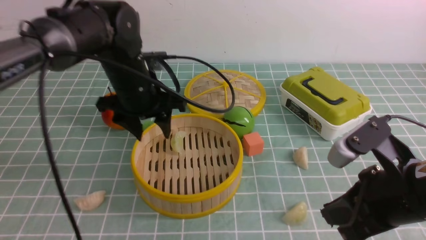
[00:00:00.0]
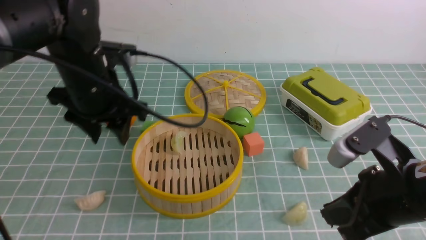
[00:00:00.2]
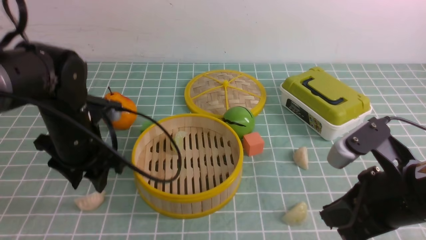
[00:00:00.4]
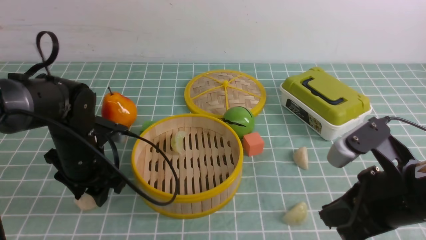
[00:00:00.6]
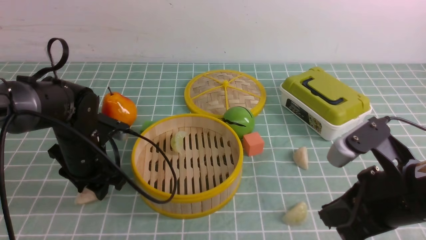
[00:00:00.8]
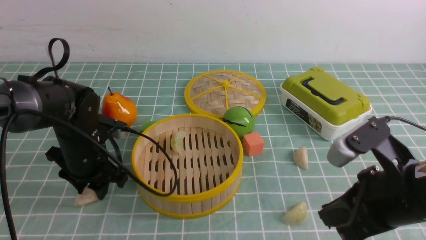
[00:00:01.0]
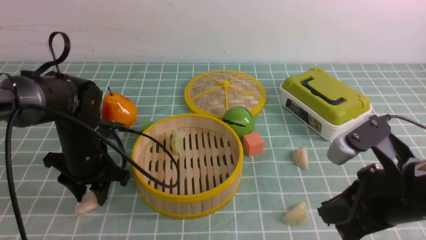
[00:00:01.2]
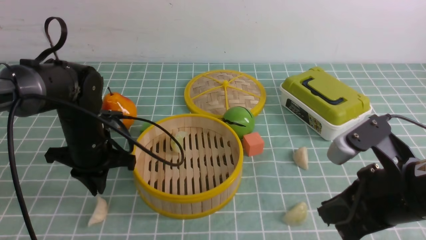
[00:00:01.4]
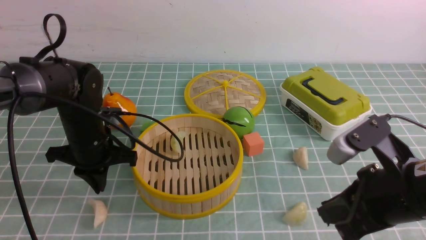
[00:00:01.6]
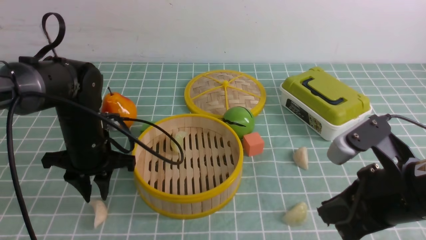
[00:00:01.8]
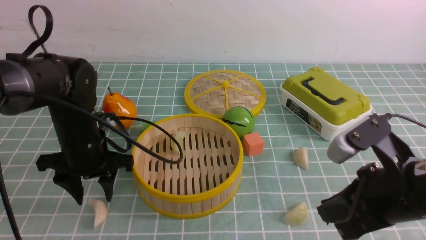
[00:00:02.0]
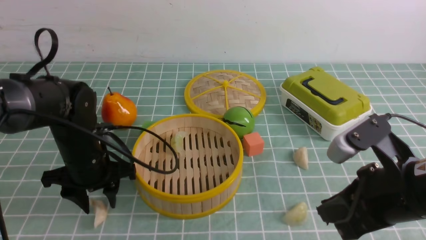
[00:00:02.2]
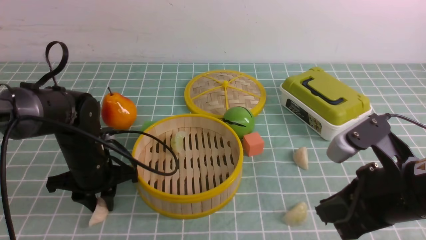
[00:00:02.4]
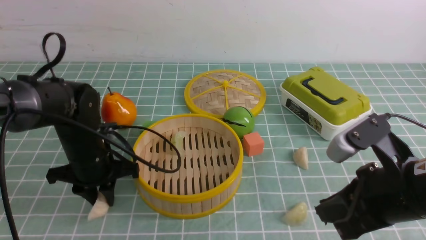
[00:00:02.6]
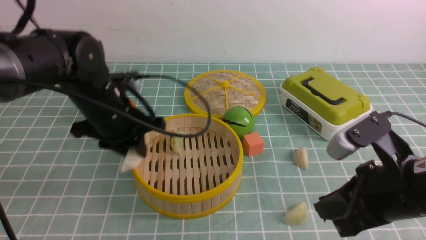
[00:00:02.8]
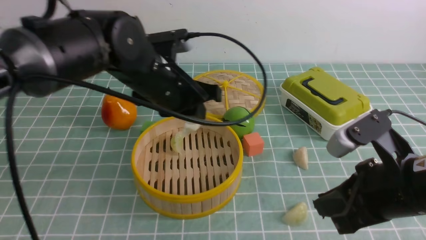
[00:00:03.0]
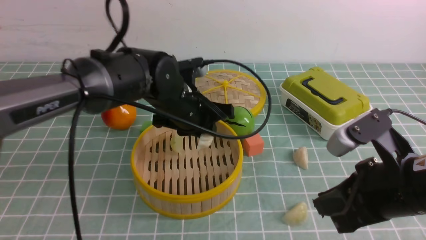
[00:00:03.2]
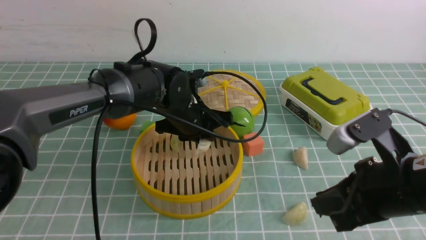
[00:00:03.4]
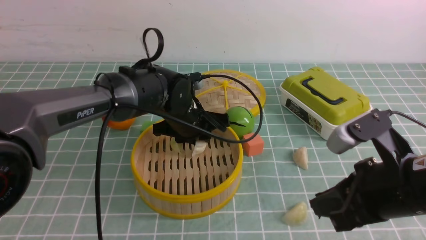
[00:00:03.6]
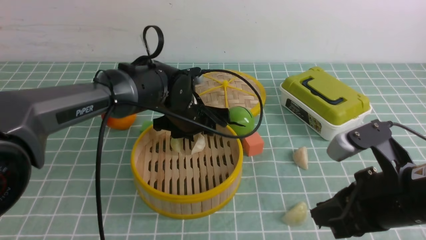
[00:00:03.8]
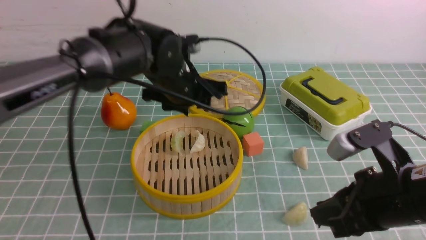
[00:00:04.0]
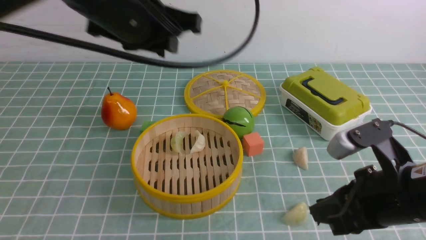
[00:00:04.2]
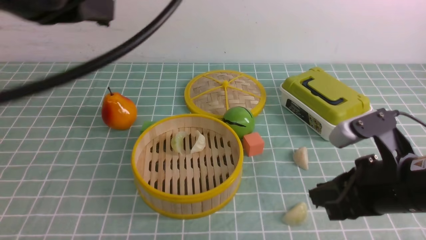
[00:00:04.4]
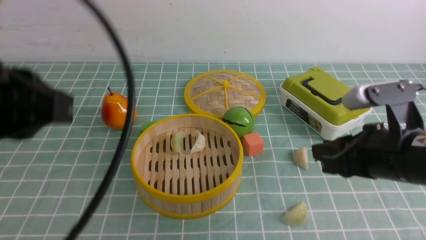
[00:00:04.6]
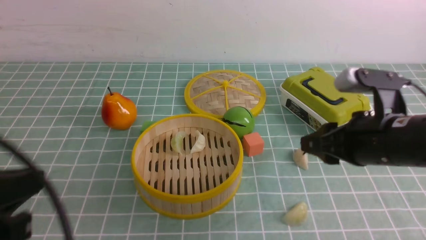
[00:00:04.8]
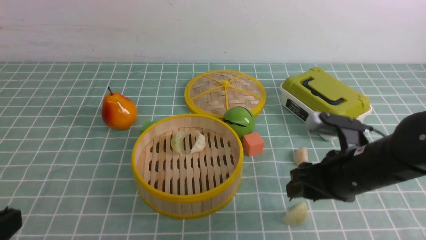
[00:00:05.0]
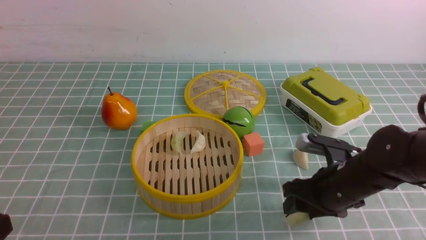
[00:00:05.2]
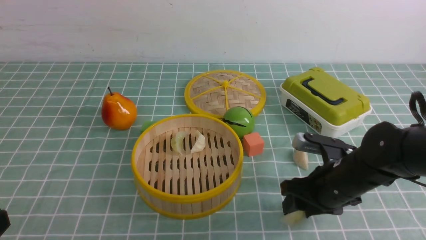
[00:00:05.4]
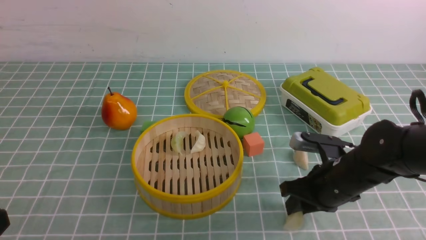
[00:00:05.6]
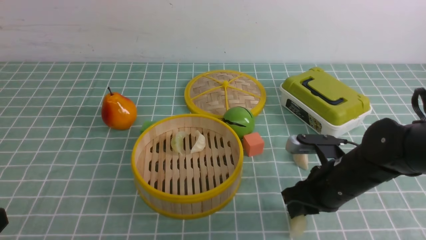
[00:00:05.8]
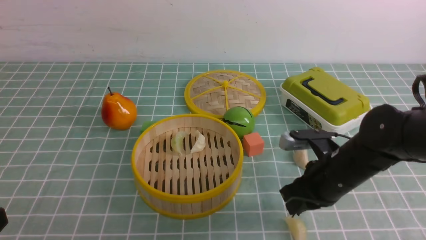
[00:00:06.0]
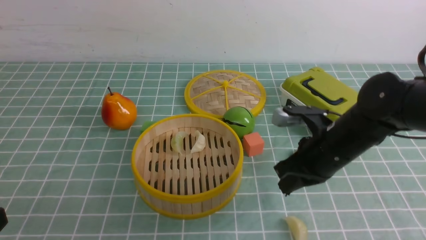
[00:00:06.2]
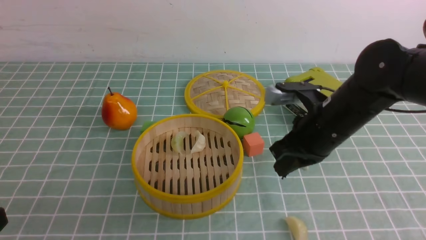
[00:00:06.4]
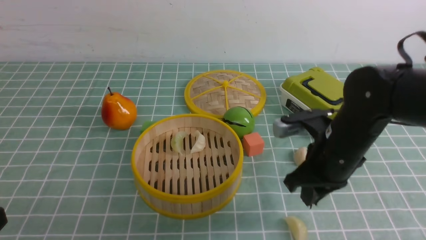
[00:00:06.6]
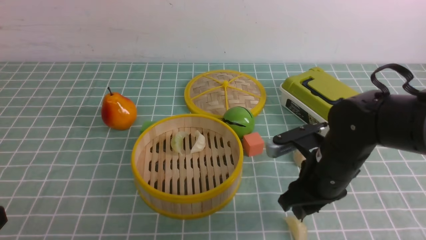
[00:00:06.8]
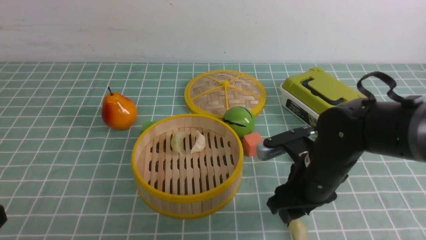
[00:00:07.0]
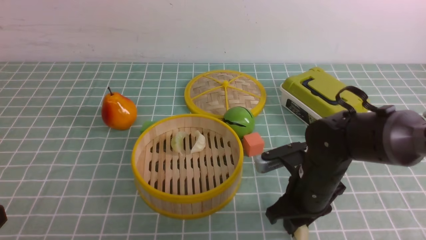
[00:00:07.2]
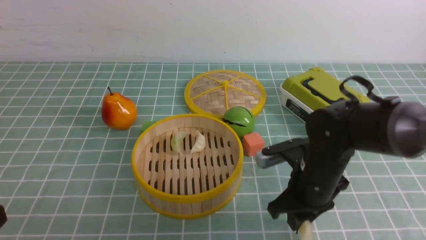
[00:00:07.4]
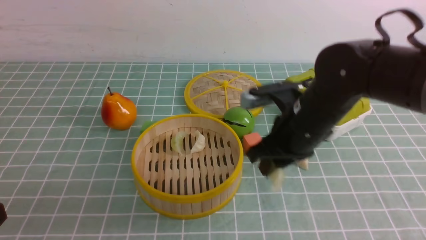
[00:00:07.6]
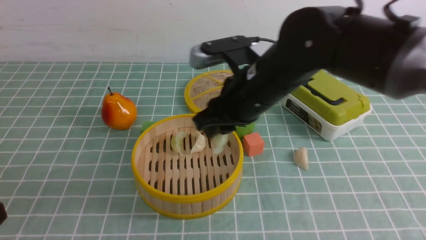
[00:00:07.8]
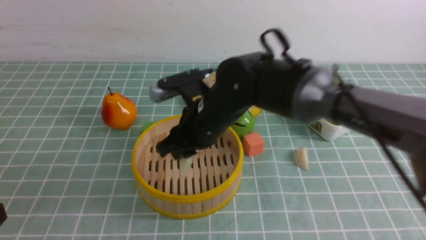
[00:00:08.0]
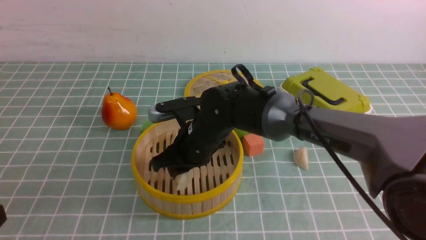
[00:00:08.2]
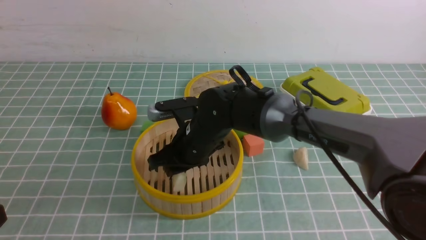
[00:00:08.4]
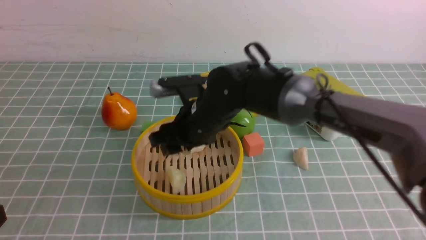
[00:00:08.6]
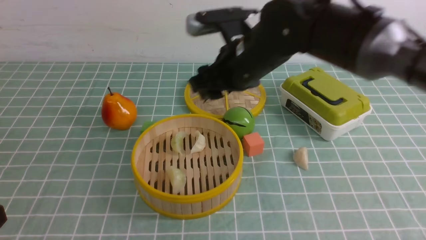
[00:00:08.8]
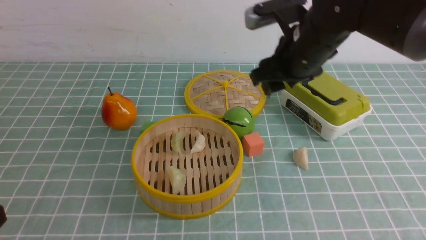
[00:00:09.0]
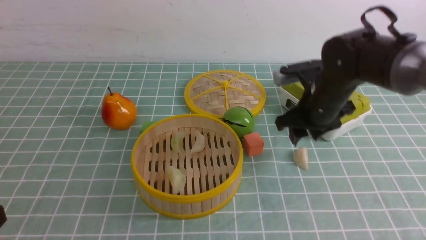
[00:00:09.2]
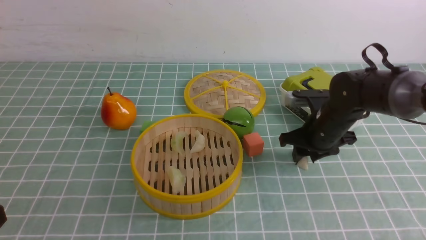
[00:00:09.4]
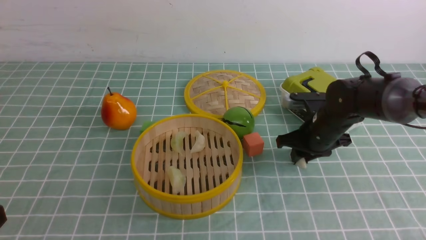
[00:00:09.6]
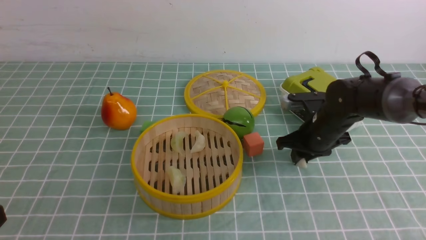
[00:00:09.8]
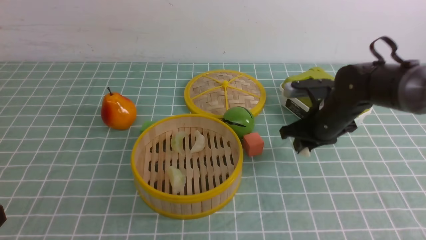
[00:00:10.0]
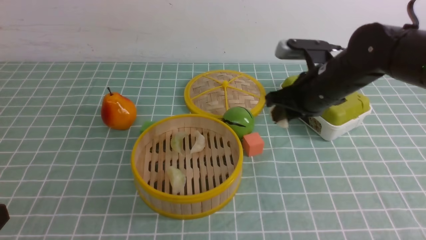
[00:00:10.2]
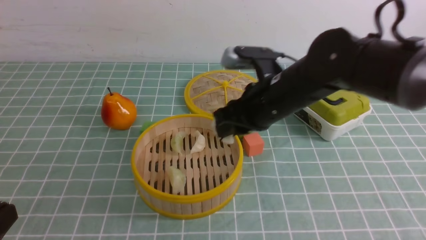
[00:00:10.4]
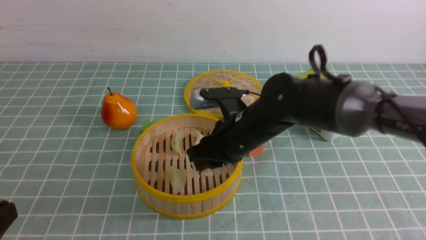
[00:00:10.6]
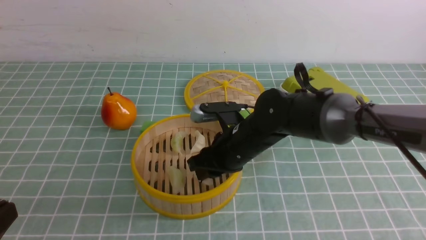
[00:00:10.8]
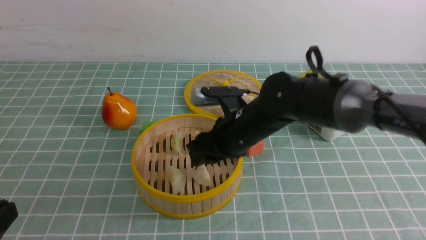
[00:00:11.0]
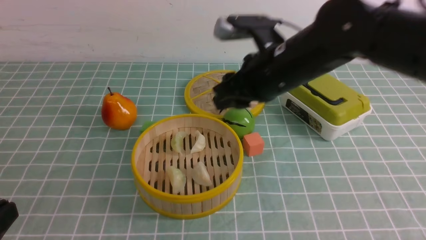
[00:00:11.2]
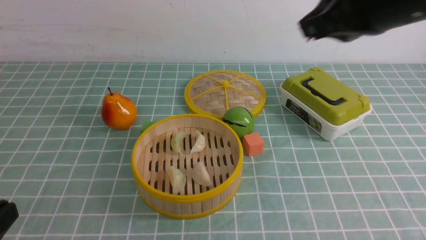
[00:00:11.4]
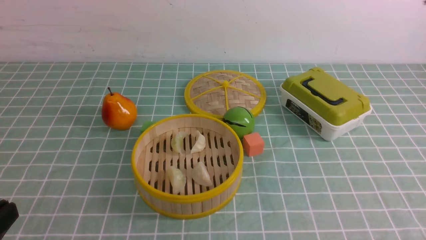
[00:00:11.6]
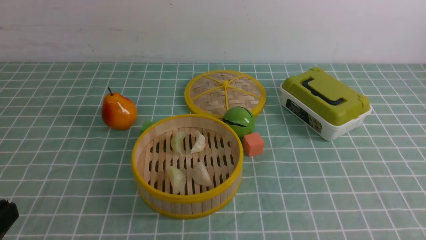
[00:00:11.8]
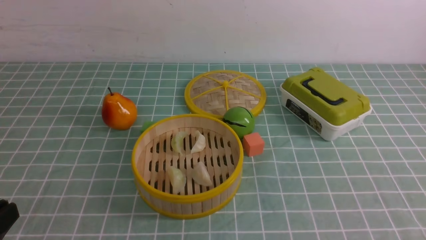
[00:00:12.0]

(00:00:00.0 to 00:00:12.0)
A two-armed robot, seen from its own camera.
Task of the whole recording: put the dumplings into the steamer on the table with the blue tablecloth.
Step, 00:00:00.2 - 00:00:02.8: use the left arm to grab a dumpling.
Step, 00:00:03.0 - 00:00:03.8: use the left arm to put the dumpling into the steamer.
Step, 00:00:04.0 - 00:00:07.6: use the right arm to grab a dumpling.
Step, 00:00:07.8 - 00:00:08.6: use the right arm to put the dumpling into the steamer.
Step, 00:00:08.8 - 00:00:10.2: use the right arm to grab a dumpling.
Step, 00:00:10.4 - 00:00:11.2: use the right arm to put the dumpling into the steamer.
00:00:00.0 - 00:00:01.6: The left gripper heads downward and to the left, covering roughly 10 cm, and closes.
00:00:01.6 - 00:00:03.0: The left gripper goes about 15 cm to the right and upward, and opens, then closes again.
00:00:03.0 - 00:00:04.4: The left gripper moves upward, backward and to the left, about 25 cm, and closes its fingers.
00:00:04.4 - 00:00:06.0: The right gripper shifts some 10 cm forward and downward, and opens and closes again. The left gripper is displaced downward, backward and to the left by some 25 cm.
00:00:06.0 - 00:00:07.6: The right gripper goes up and down, some 10 cm each way, reversing 2 times.
00:00:07.6 - 00:00:09.0: The right gripper shifts about 10 cm forward, moves roughly 10 cm to the left and comes back, and opens.
00:00:09.0 - 00:00:10.4: The right gripper moves approximately 15 cm downward and comes back, and closes its fingers.
00:00:10.4 - 00:00:12.0: The right gripper heads backward and to the right, covering some 35 cm, and closes.

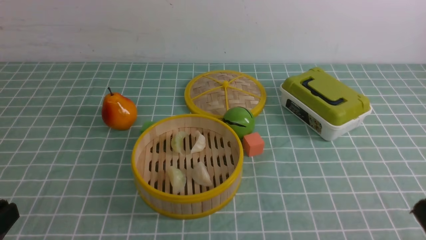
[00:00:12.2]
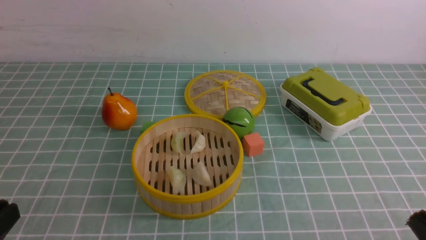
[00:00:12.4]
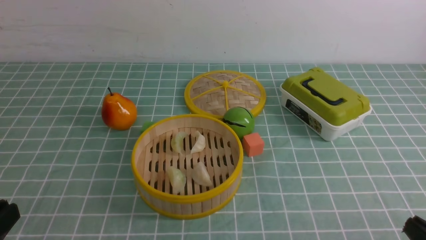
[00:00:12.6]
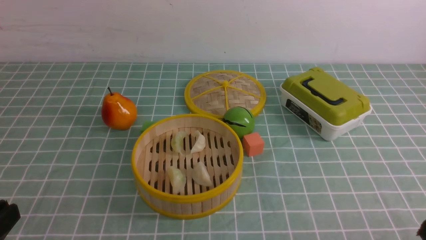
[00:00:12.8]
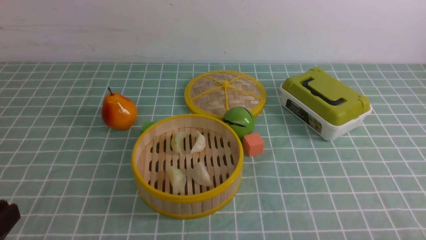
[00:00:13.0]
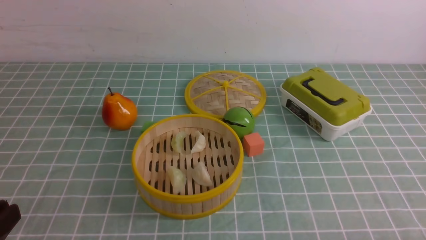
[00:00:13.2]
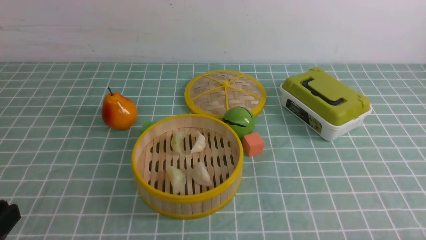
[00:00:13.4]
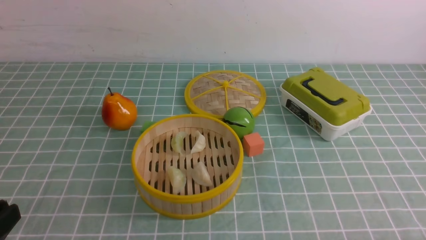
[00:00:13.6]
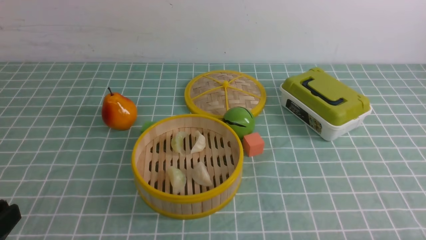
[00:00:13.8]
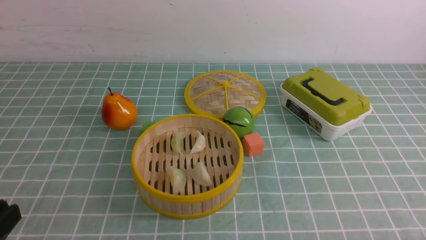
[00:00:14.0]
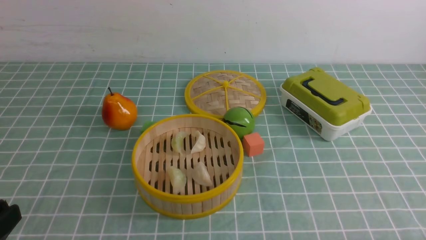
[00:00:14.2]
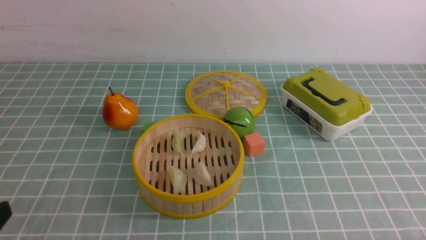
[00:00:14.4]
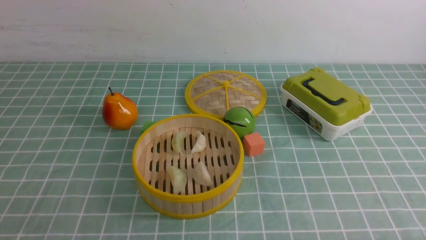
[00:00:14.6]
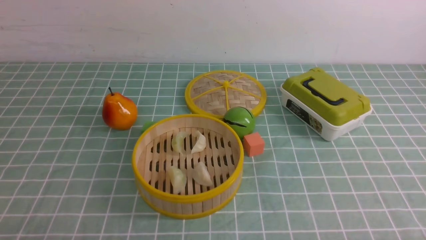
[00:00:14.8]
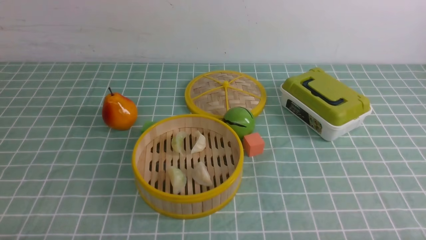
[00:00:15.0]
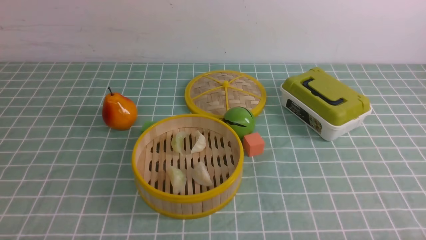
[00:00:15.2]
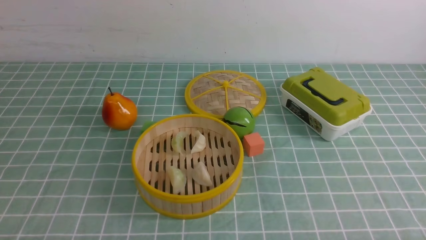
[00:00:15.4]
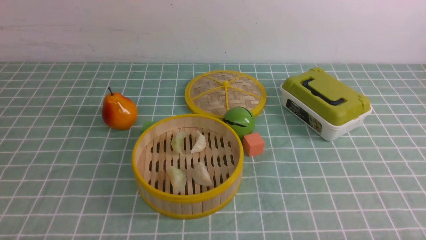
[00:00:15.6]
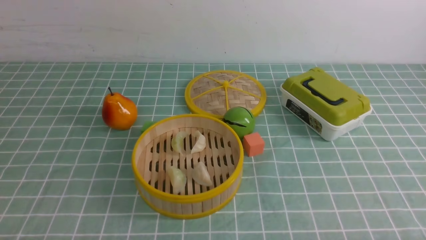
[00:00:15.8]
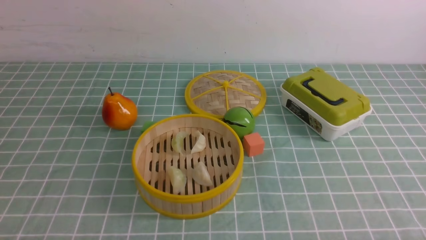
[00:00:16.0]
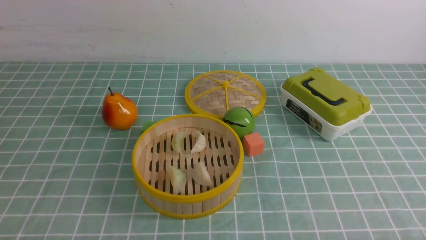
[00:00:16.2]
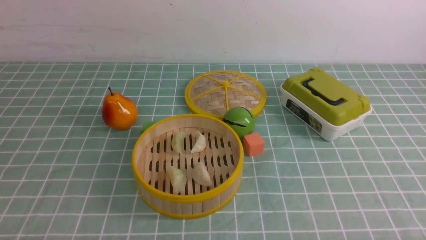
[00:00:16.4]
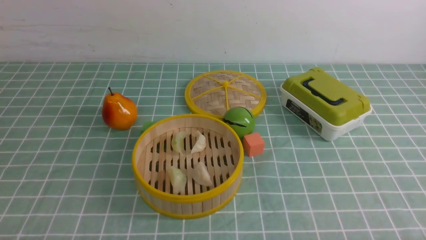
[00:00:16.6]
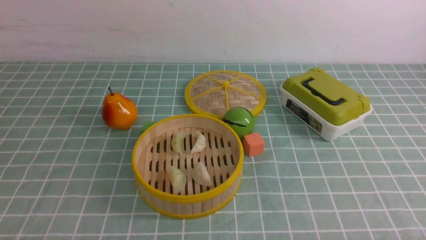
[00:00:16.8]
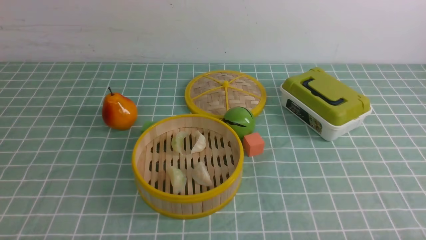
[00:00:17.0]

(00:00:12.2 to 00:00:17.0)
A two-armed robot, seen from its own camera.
Task of the whole recording: put the dumplings into the steamer on the table with the blue tablecloth.
00:00:15.4 - 00:00:17.0: Neither gripper changes place.
